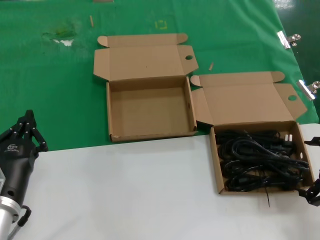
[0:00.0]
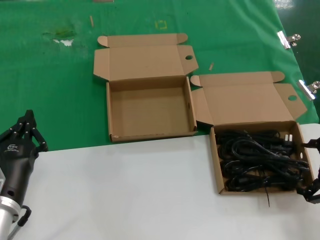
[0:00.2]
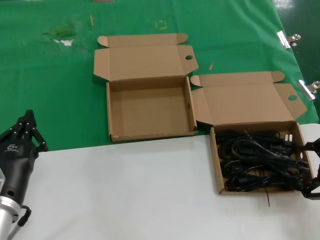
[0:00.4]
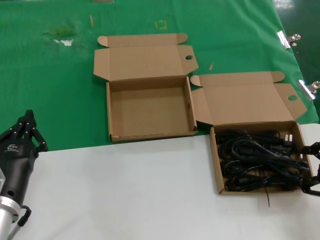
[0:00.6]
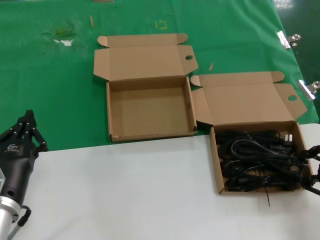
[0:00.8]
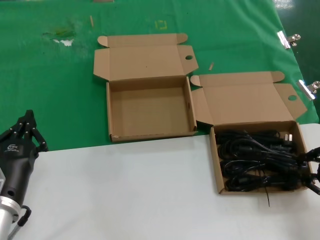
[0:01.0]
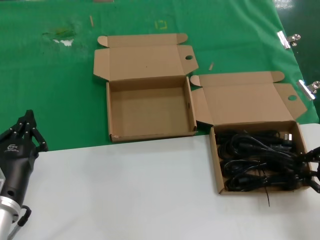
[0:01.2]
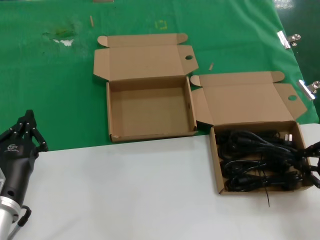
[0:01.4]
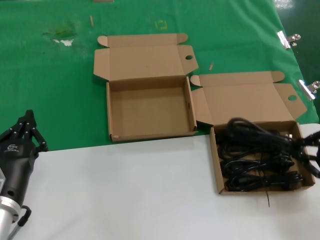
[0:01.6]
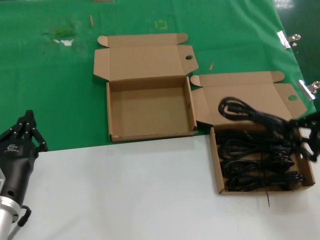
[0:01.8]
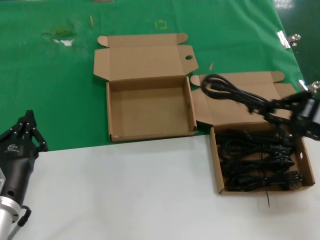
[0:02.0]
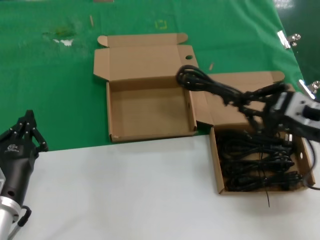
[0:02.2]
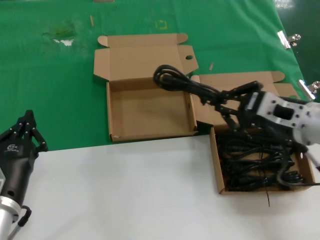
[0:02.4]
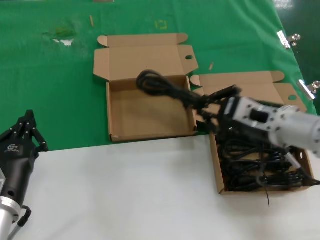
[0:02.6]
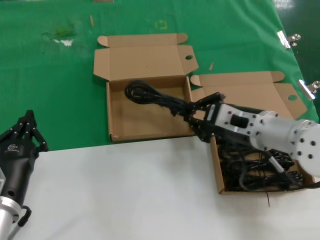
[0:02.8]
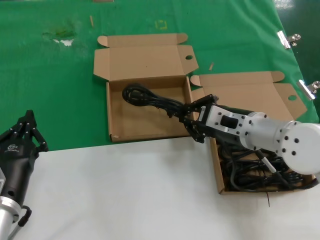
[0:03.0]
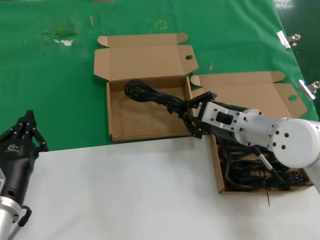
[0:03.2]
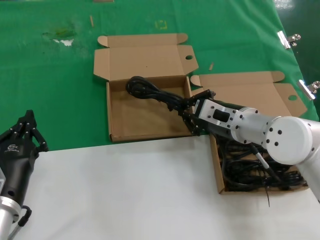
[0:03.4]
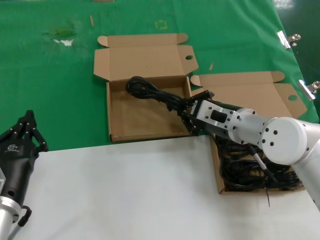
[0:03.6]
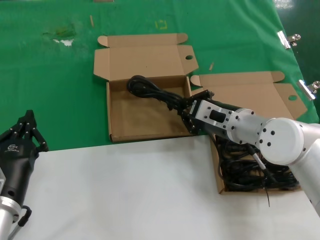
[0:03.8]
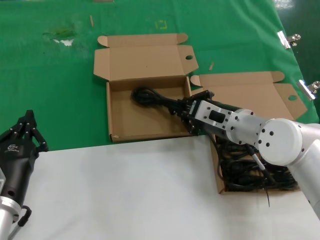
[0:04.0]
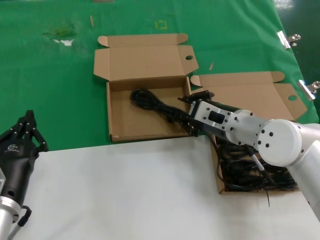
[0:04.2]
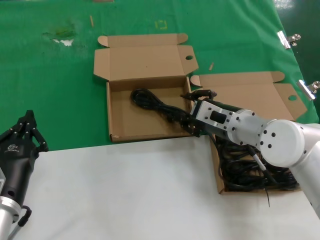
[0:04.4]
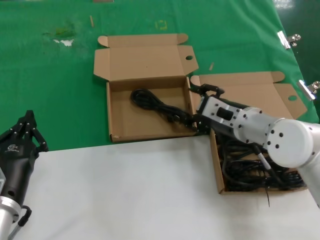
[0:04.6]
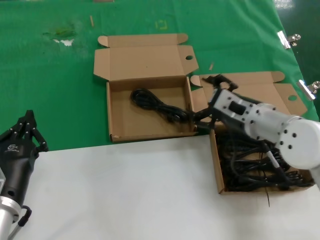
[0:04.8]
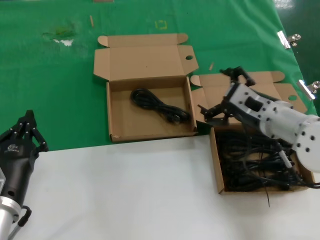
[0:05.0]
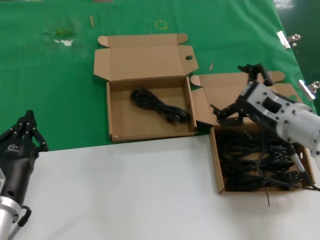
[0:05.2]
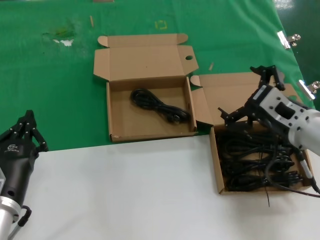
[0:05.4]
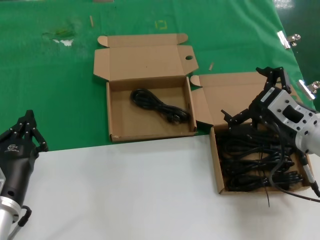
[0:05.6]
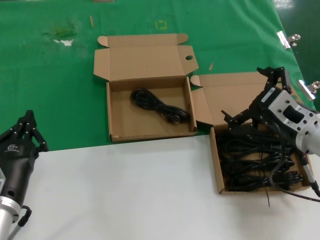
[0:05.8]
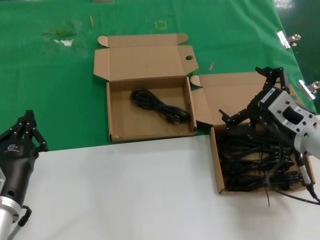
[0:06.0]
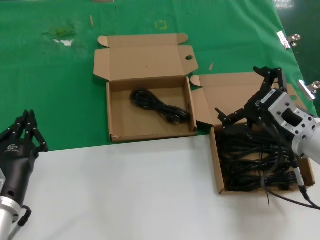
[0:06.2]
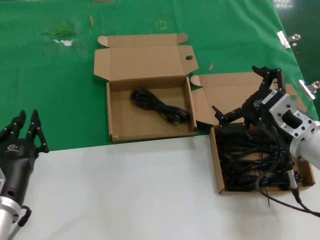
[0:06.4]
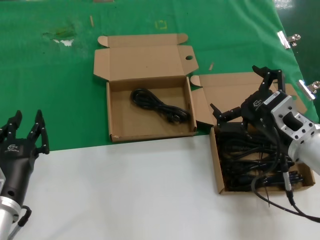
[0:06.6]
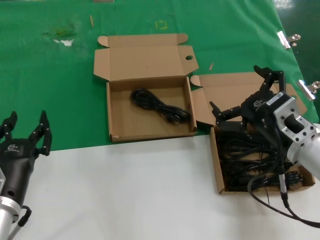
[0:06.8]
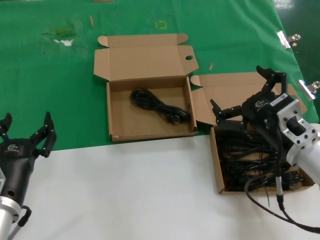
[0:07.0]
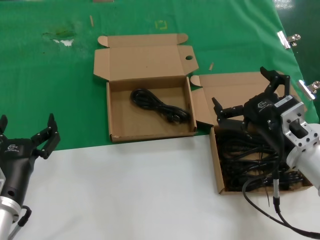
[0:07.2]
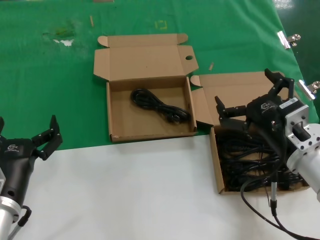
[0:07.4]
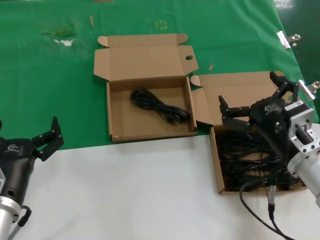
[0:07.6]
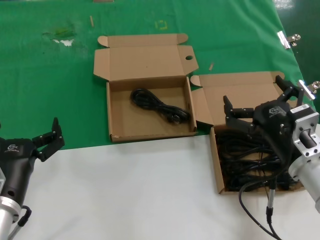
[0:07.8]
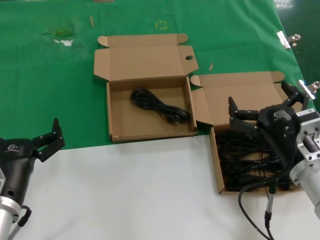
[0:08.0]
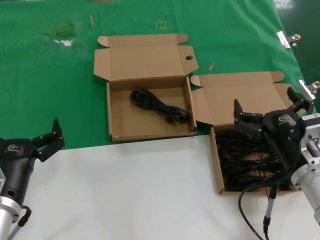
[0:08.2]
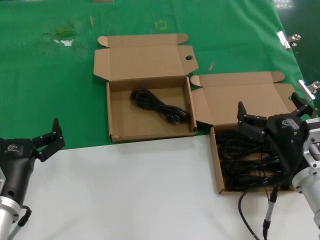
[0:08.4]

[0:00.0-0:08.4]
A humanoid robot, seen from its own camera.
Task of the whole recording: take the parts from the box containing them and put them into an empty box.
Step, 0:01.4 to 0:04.4: Place the data cable in the another box.
0:00.0 to 0:01.4: Both hands stay about where they are.
0:01.4 to 0:02.8: The right hand is displaced to the left and forward by approximately 20 cm.
0:02.8 to 0:04.2: The right hand heads forward, covering about 5 cm.
0:04.2 to 0:05.6: The right hand heads backward and to the right, covering some 10 cm.
0:05.6 to 0:07.0: The hands move only a little.
0:07.0 to 0:08.4: The right hand is displaced downward by some 5 cm.

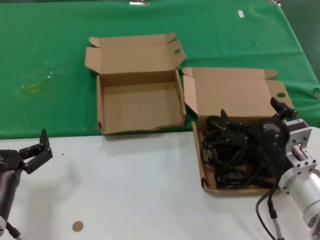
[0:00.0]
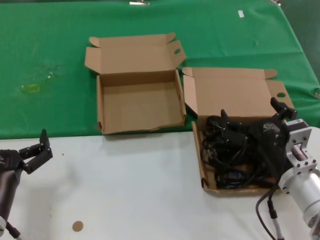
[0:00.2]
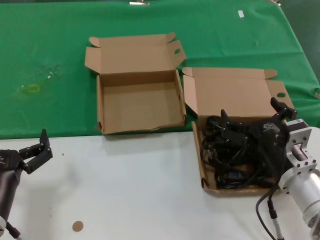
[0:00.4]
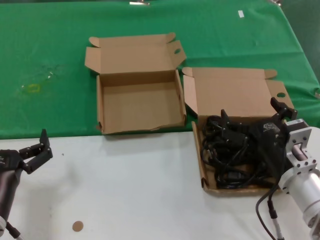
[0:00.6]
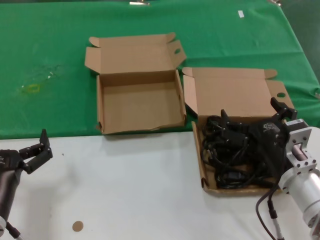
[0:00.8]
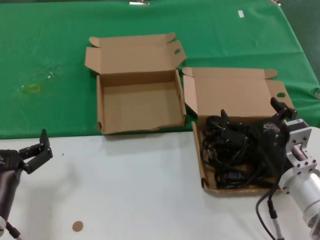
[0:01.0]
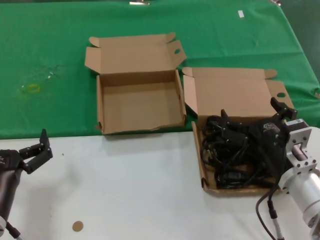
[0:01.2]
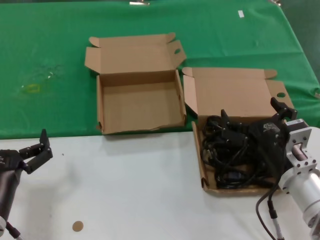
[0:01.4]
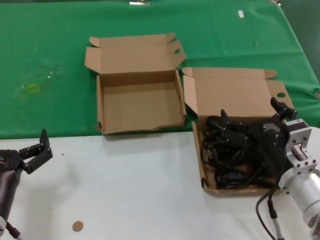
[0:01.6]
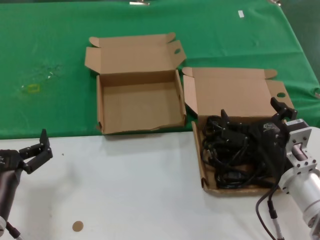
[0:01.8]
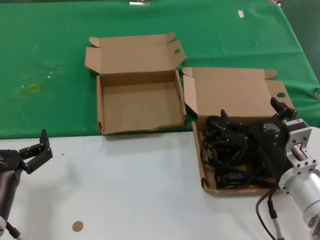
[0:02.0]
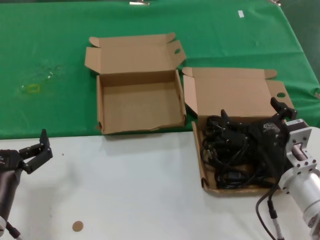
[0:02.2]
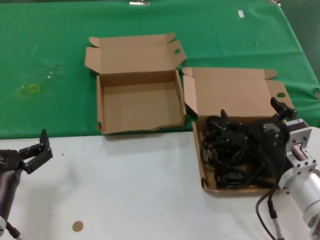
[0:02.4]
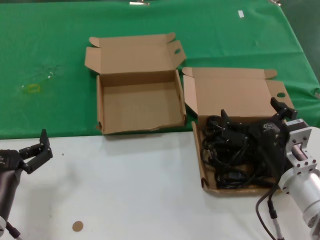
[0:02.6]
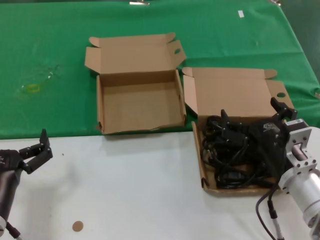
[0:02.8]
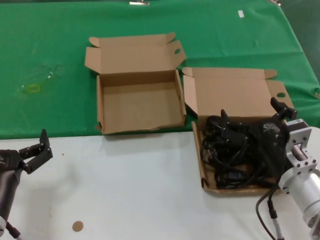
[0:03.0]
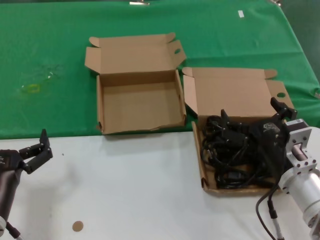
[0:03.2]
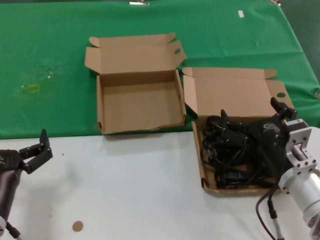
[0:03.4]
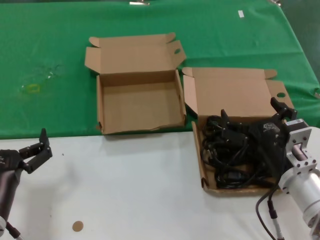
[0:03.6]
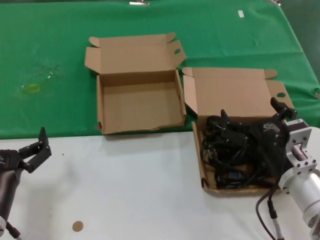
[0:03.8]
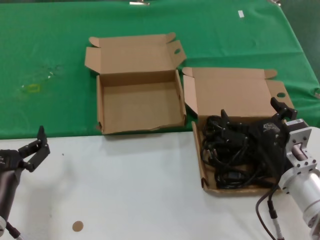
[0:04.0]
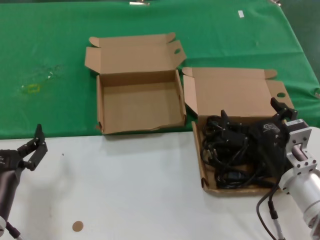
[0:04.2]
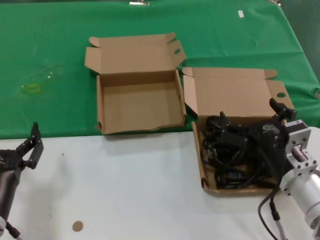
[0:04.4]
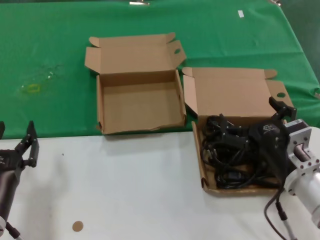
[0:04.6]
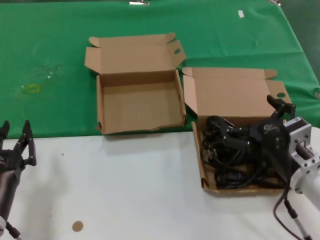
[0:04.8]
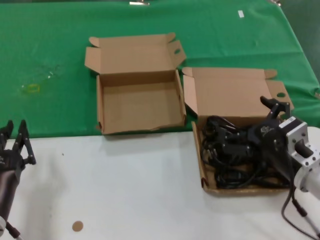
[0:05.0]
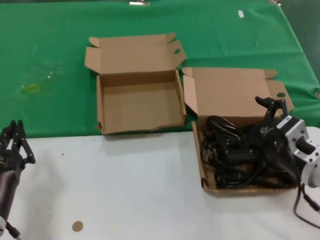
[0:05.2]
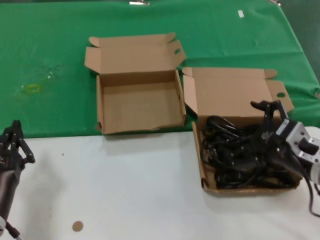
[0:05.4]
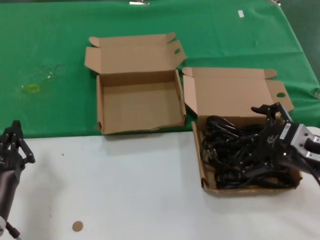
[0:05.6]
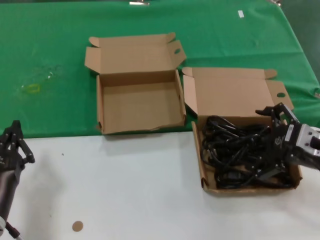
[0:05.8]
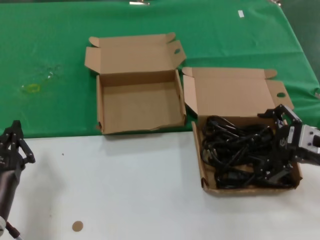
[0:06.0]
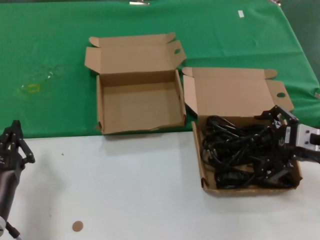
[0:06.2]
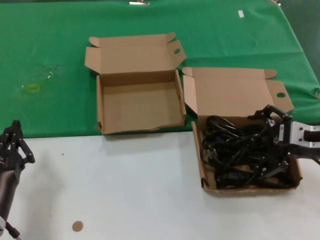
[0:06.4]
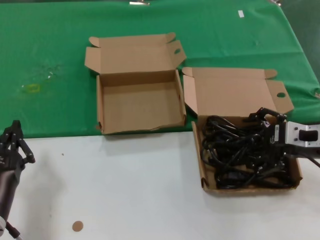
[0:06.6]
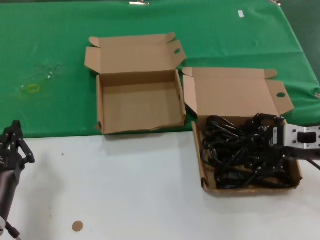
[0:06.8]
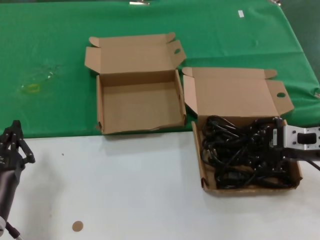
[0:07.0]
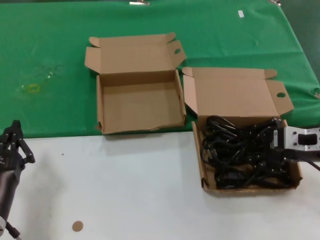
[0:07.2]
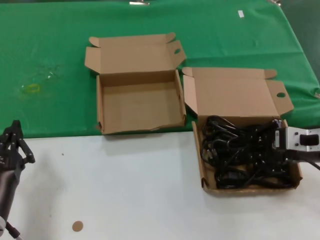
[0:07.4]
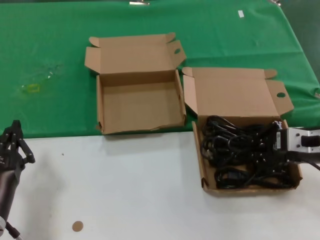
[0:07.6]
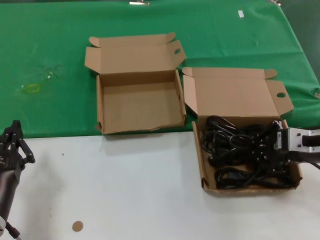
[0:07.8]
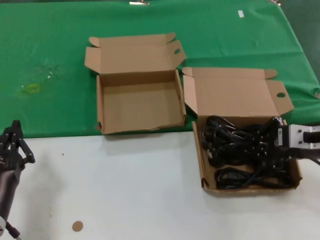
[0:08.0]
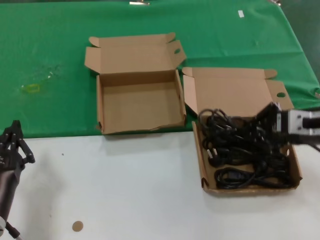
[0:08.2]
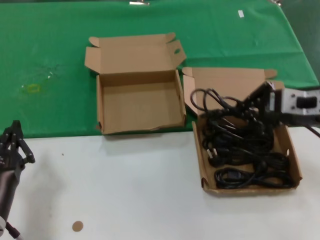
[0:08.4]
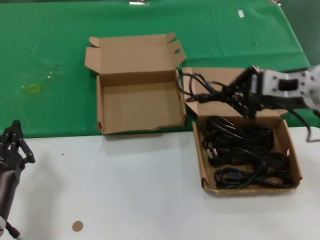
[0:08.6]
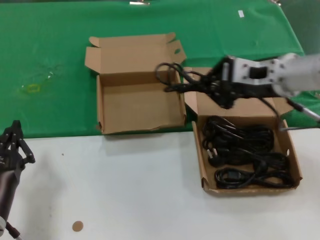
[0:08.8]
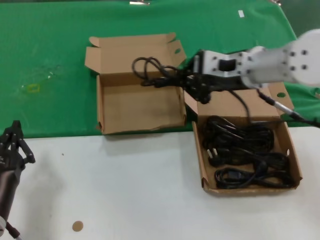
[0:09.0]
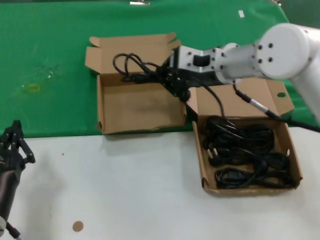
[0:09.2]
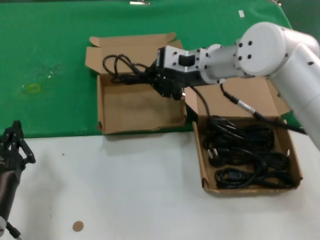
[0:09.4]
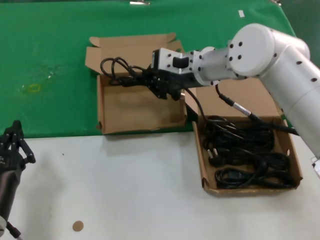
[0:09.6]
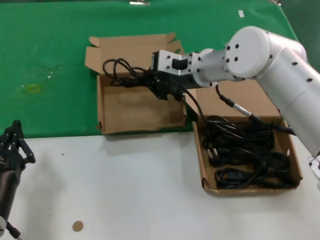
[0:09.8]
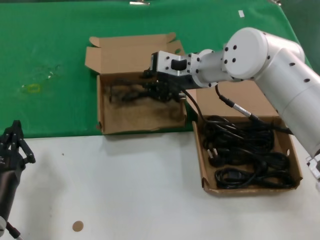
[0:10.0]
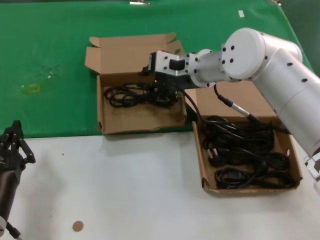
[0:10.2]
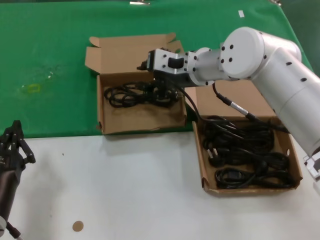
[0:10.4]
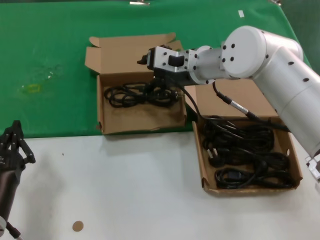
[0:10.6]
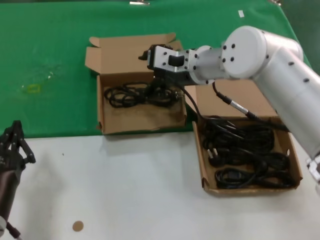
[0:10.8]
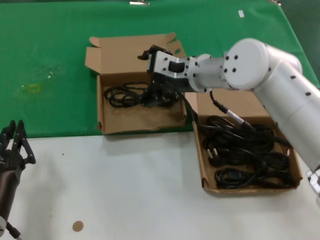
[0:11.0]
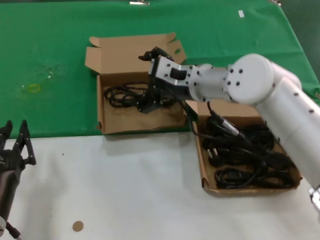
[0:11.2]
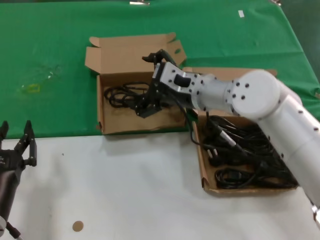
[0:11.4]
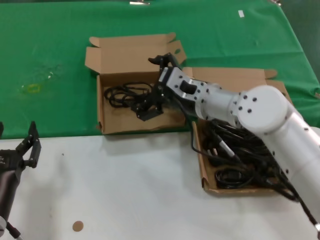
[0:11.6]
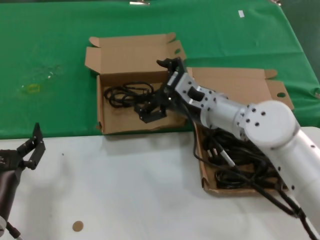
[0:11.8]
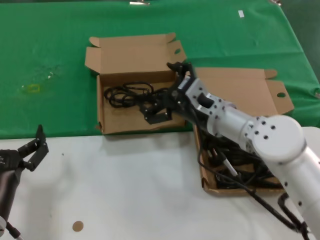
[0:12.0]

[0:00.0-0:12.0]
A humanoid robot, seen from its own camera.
Task of the whole recording: take the parts from the box containing them and put them into an empty box.
Step, 0:00.0 to 0:07.6: Grasp the data cable.
Step, 0:07.8 to 0:10.0: Place the data cable in the another box.
0:00.0 to 0:04.4: Both hands stay about where they are.
0:04.4 to 0:06.0: The right hand goes roughly 15 cm to the right and upward.
0:06.0 to 0:07.6: The hands make only small movements.
0:07.6 to 0:09.0: The right hand shifts approximately 20 cm to the left, forward and upward.
0:09.0 to 0:10.4: The right hand shifts roughly 10 cm to the left and forward.
0:10.4 to 0:12.0: The right hand travels downward and backward by some 15 cm.

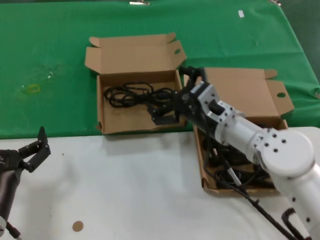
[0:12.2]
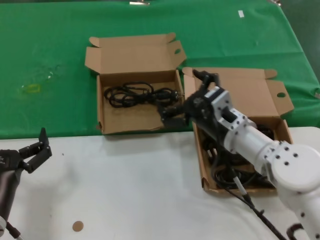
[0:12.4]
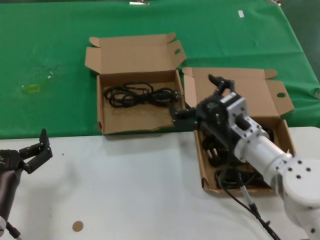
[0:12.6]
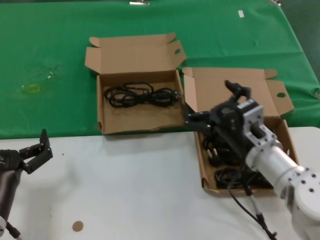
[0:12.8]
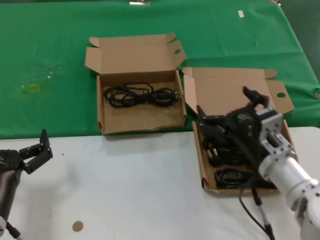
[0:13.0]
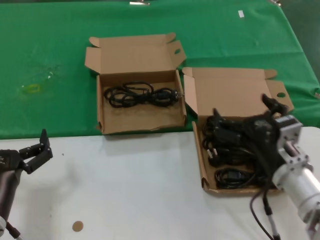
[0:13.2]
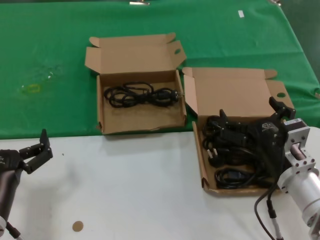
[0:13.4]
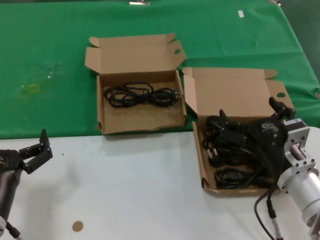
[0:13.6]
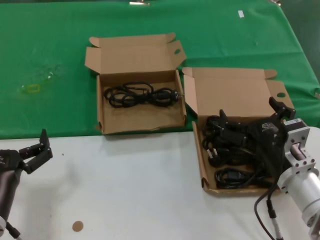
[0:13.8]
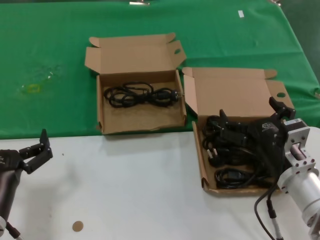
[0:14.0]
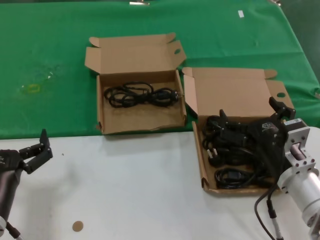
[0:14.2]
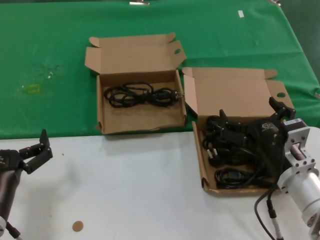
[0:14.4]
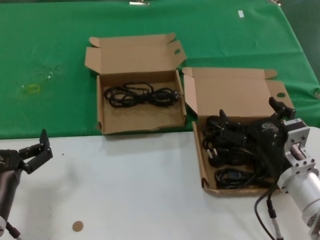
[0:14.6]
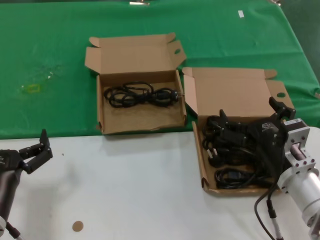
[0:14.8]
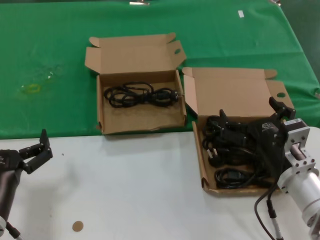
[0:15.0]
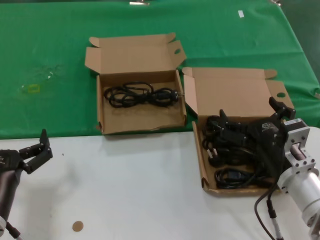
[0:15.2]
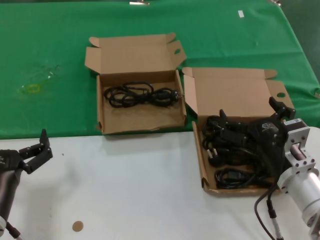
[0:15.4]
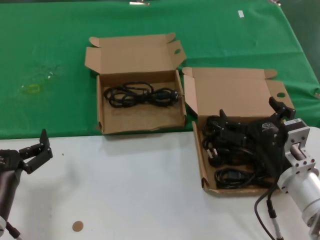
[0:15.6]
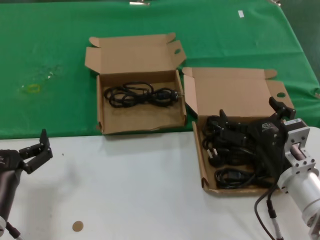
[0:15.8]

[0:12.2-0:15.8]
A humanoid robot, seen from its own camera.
Task of the whole recording: take the parts from the box containing them and put them into an empty box.
0:12.2 to 0:14.0: The right hand goes about 15 cm backward, to the right and downward.
0:14.0 to 0:15.8: Both hands stay put.
